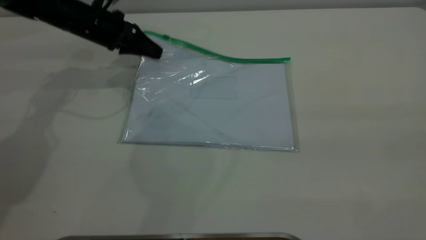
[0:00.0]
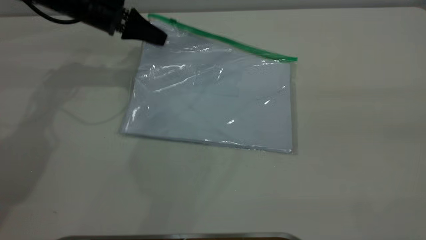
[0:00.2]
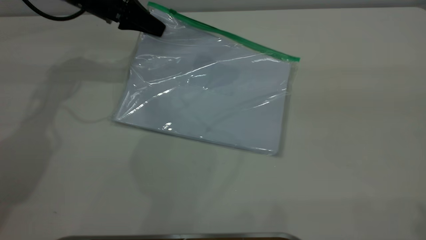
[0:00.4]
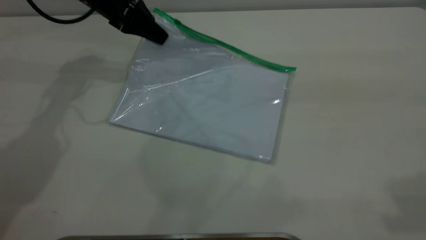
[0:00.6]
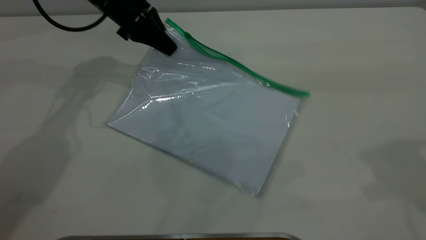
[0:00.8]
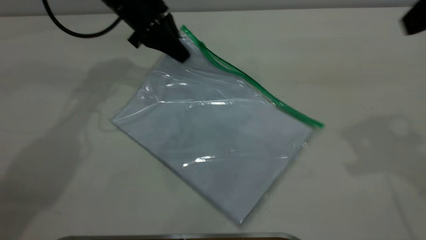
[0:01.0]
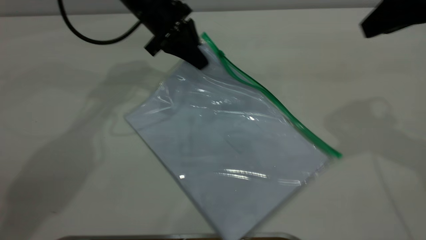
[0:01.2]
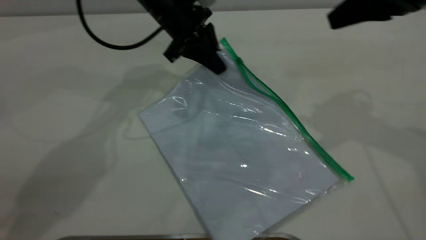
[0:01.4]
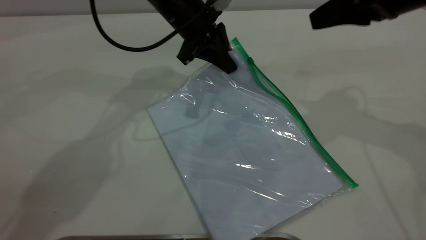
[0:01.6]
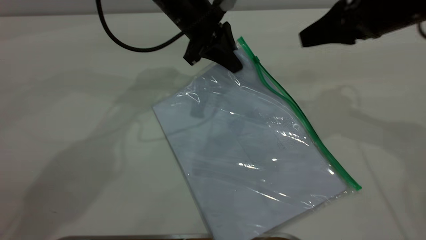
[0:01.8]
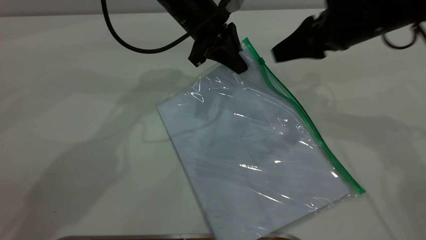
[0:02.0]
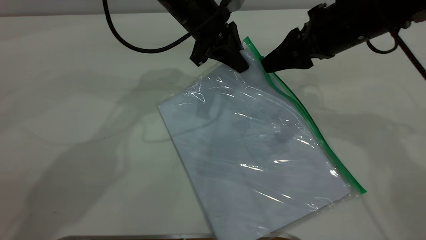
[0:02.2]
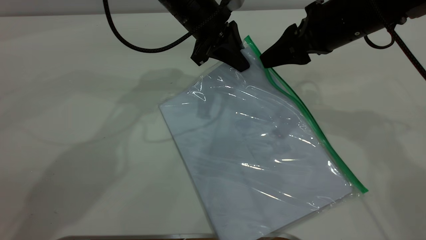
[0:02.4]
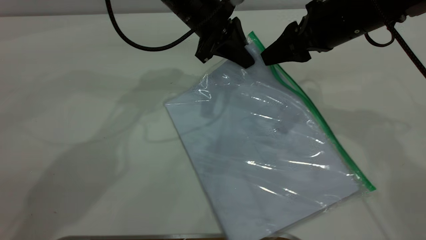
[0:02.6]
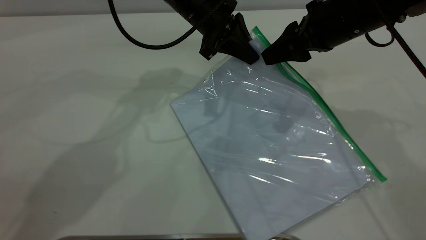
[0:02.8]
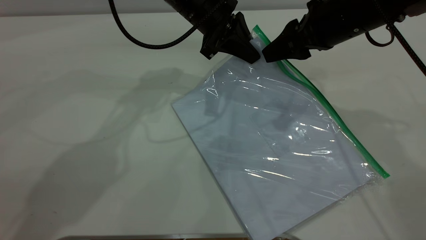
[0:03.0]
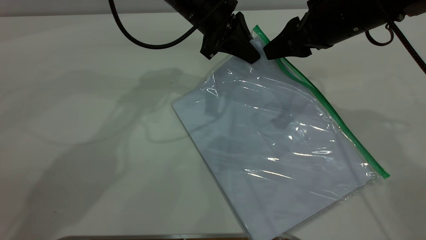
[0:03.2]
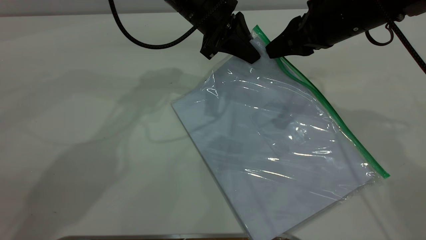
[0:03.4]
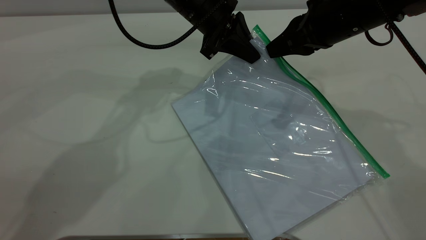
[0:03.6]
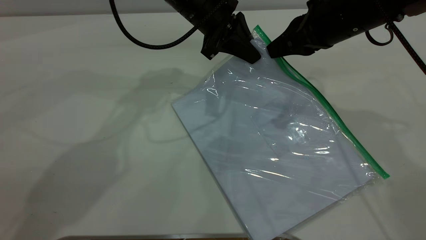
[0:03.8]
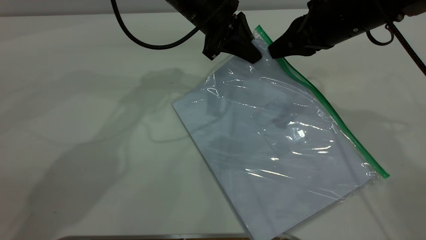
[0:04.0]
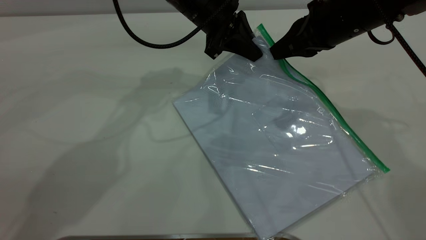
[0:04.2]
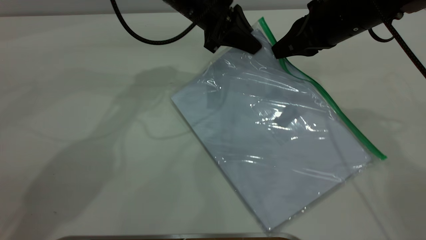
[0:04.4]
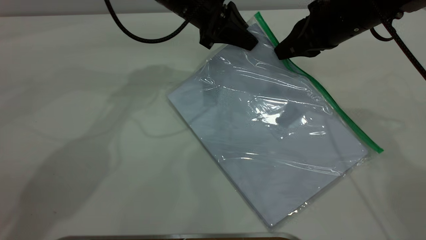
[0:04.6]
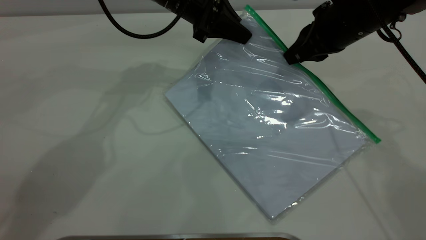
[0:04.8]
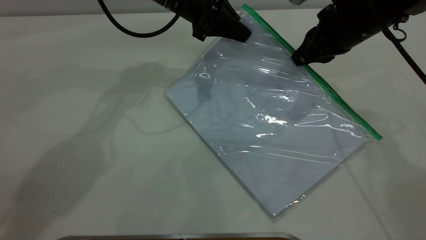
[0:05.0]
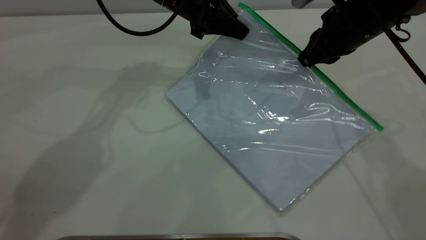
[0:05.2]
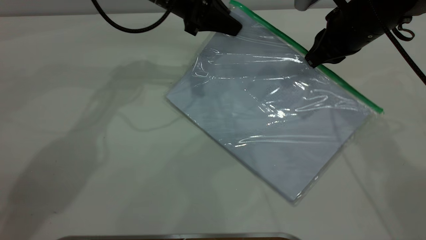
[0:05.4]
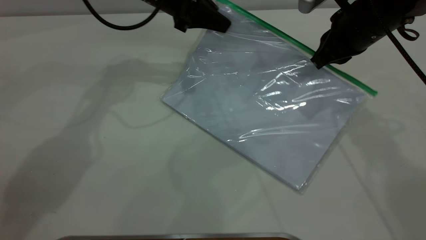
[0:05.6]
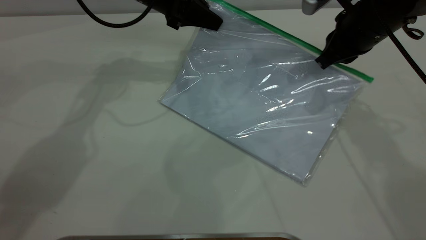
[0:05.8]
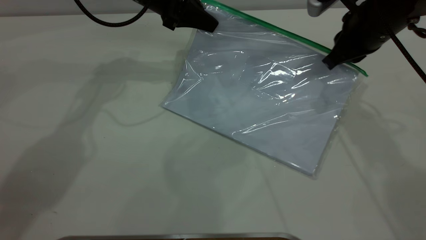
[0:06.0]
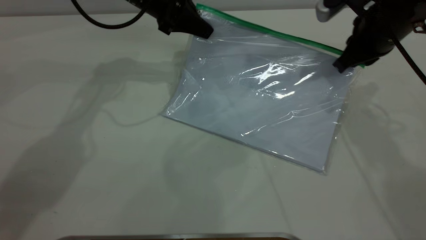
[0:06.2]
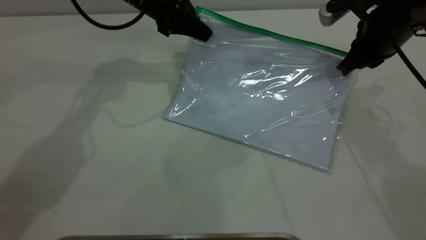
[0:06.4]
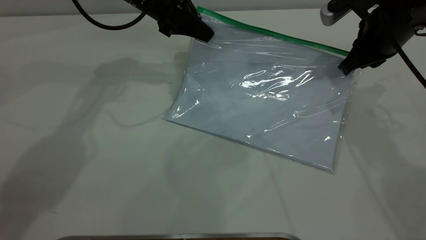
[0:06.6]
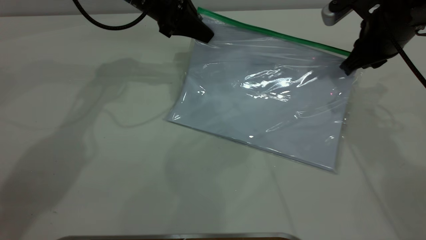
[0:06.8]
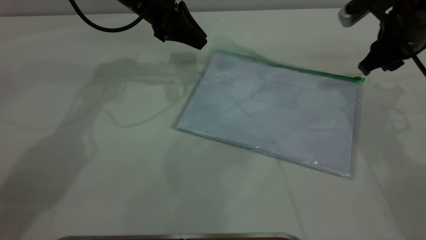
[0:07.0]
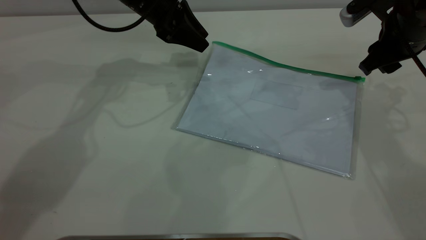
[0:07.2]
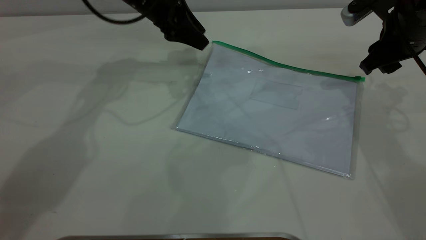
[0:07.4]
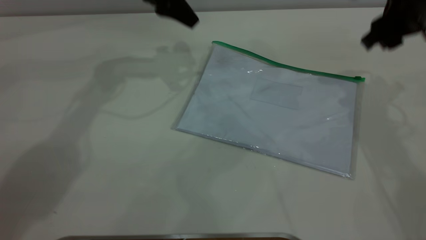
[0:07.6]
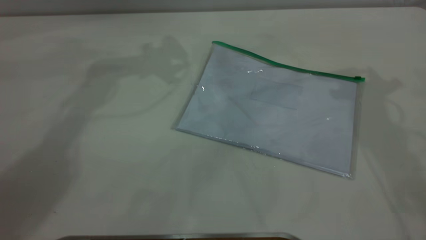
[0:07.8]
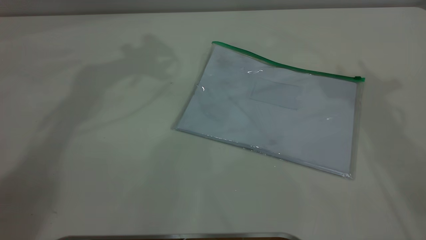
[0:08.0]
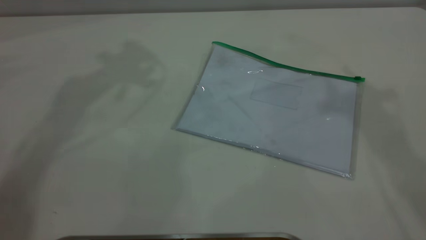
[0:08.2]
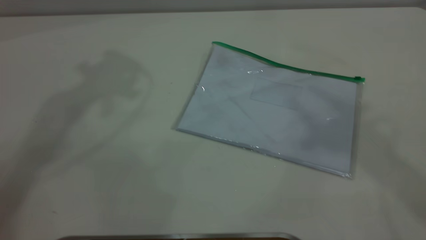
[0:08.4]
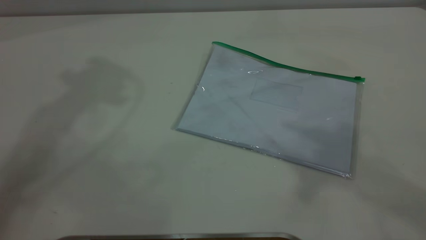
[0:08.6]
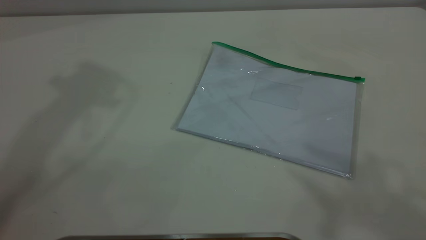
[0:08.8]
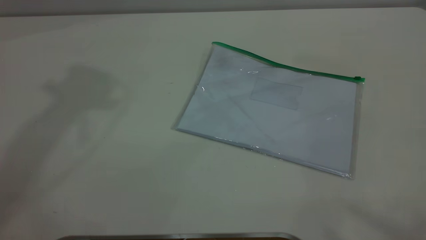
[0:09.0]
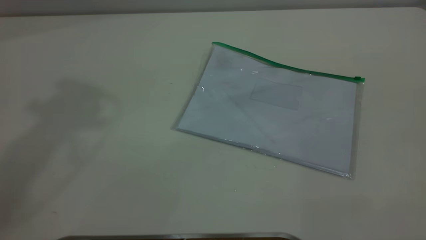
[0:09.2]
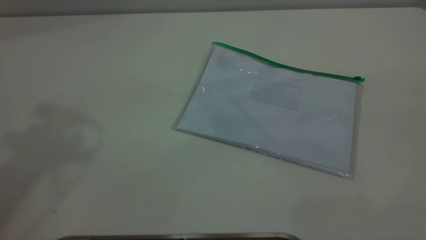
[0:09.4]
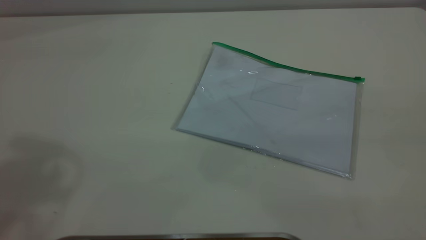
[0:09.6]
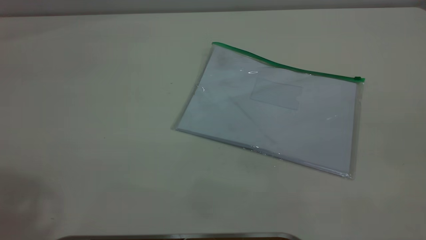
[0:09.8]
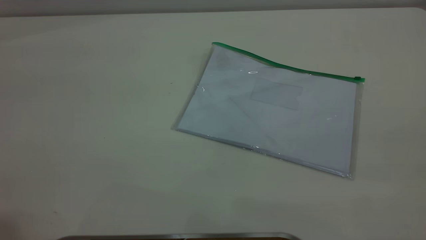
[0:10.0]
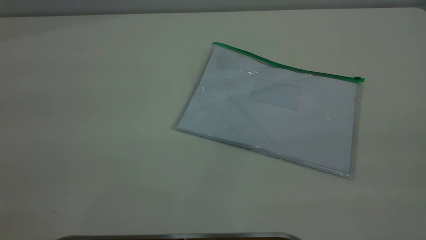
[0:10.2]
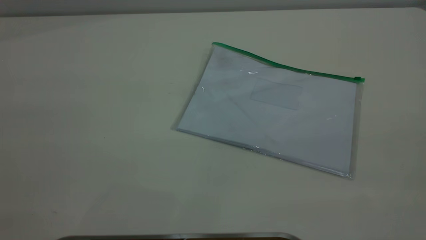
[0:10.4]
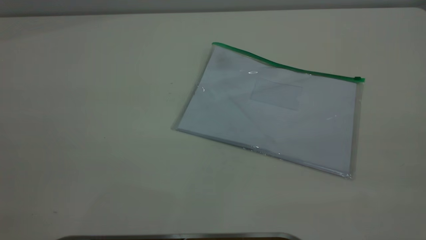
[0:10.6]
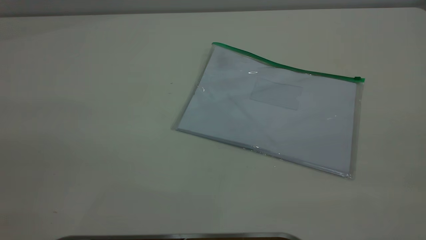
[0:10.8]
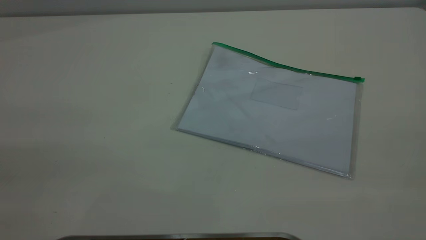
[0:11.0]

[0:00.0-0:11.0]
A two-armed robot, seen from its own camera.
Step, 0:00.2 to 0:06.2: Pulling up the zipper on the transparent plastic bag with the right gripper to close it.
Step, 0:06.4 to 0:07.2: Place the transparent plastic bag.
0:00.0 to 0:01.6: The left gripper travels to the right by approximately 15 cm. Meanwhile the right gripper goes about 35 cm forward and downward.
0:01.6 to 0:03.2: The right gripper shifts roughly 10 cm to the left and downward.
0:03.2 to 0:04.8: The right gripper closes.
0:04.8 to 0:06.2: The right gripper moves approximately 5 cm, while the left gripper travels to the left by about 5 cm.
0:06.2 to 0:07.8: Both grippers travel together upward, about 15 cm. The right gripper opens. Meanwhile the left gripper opens.

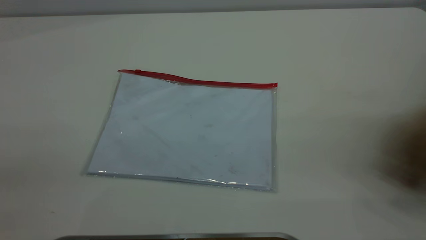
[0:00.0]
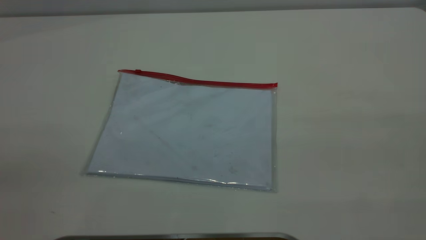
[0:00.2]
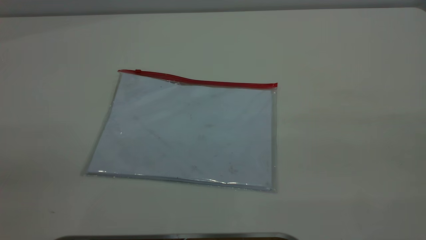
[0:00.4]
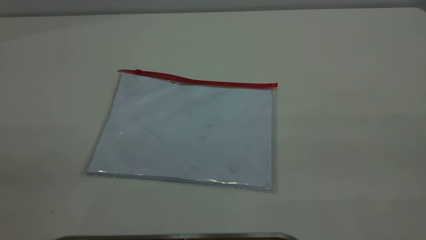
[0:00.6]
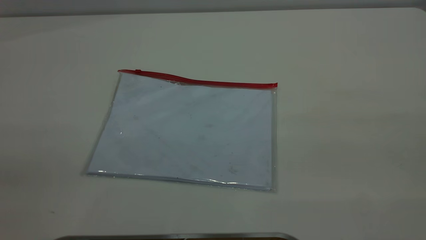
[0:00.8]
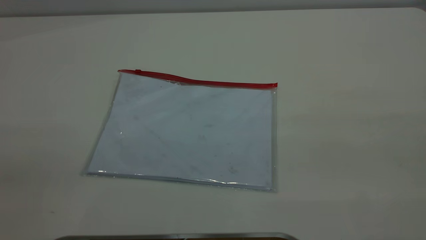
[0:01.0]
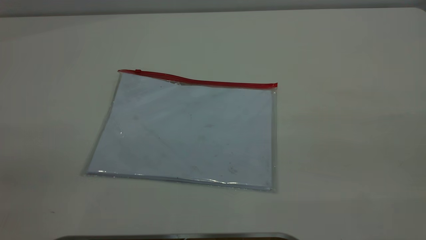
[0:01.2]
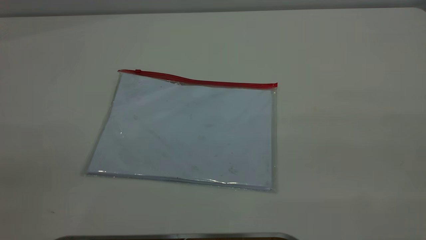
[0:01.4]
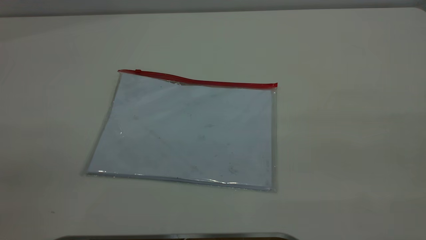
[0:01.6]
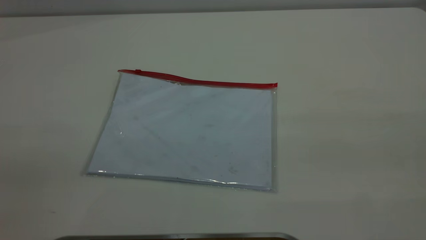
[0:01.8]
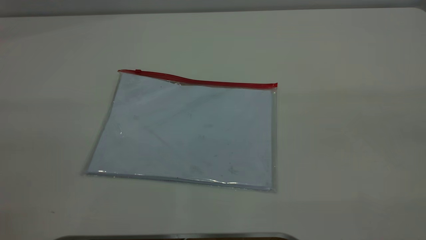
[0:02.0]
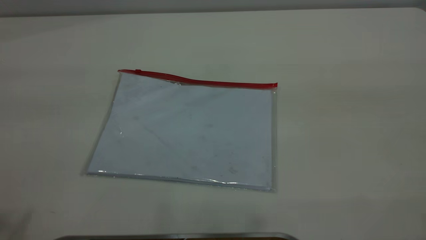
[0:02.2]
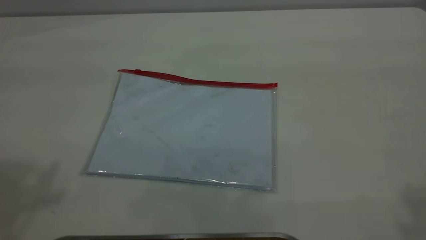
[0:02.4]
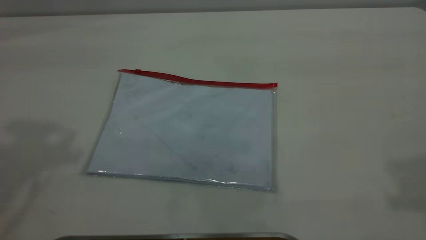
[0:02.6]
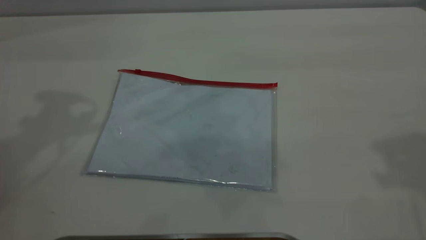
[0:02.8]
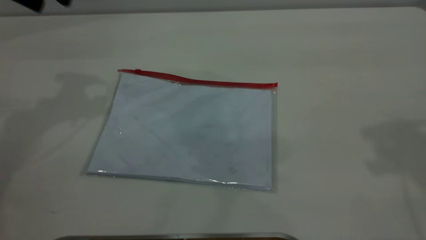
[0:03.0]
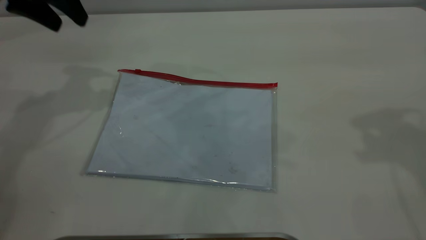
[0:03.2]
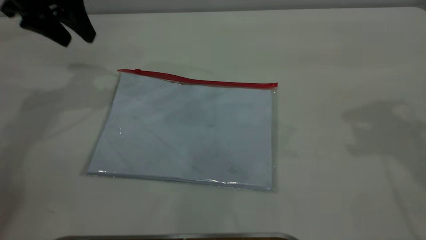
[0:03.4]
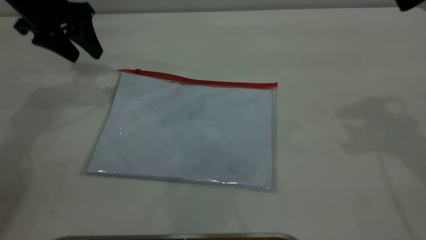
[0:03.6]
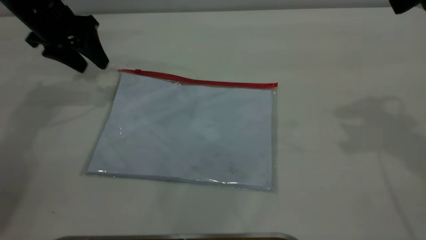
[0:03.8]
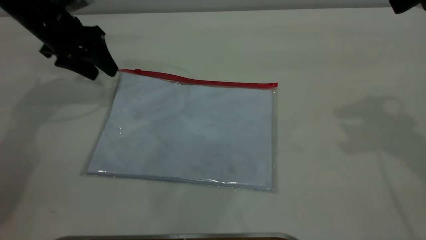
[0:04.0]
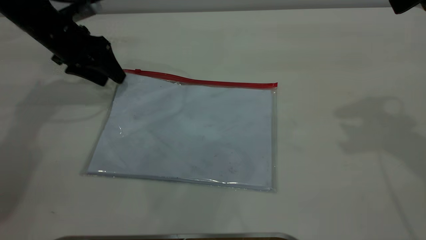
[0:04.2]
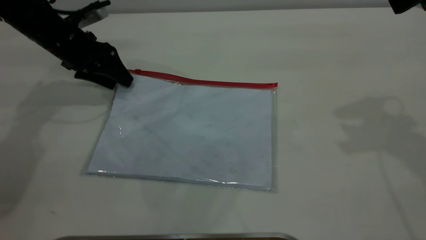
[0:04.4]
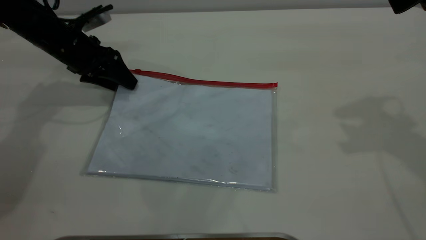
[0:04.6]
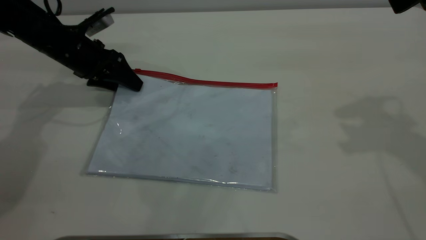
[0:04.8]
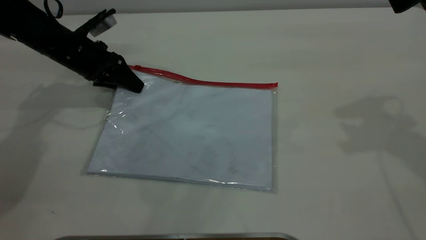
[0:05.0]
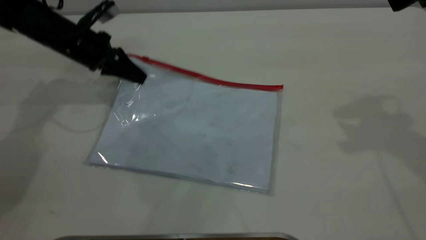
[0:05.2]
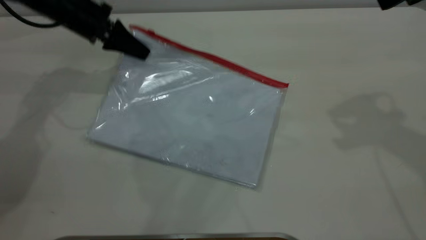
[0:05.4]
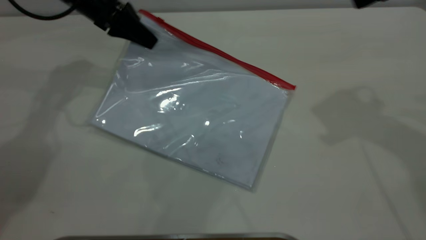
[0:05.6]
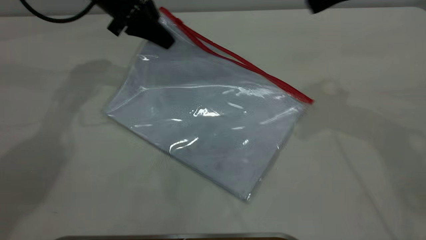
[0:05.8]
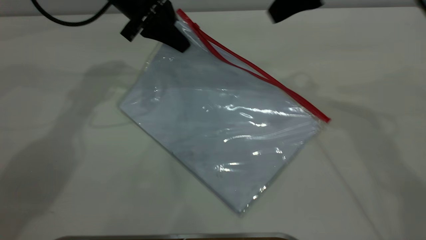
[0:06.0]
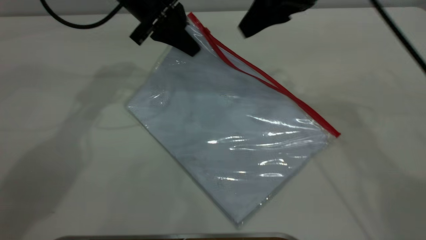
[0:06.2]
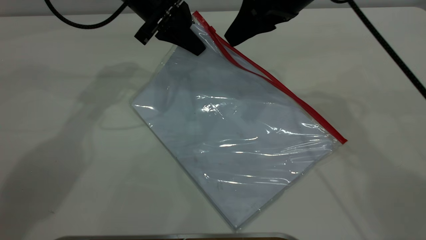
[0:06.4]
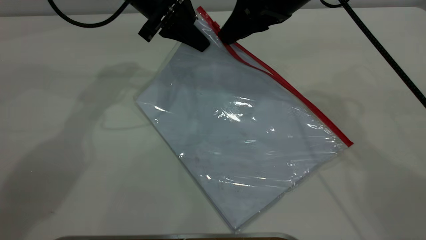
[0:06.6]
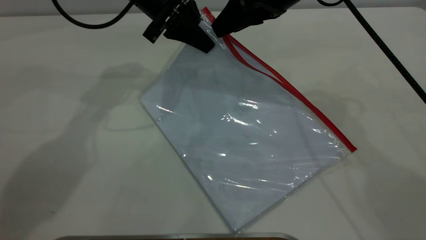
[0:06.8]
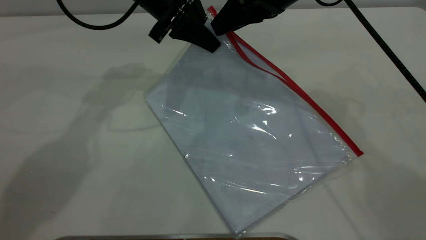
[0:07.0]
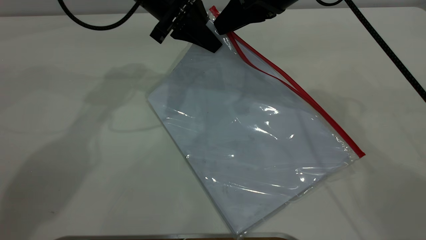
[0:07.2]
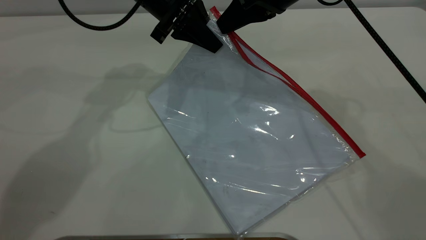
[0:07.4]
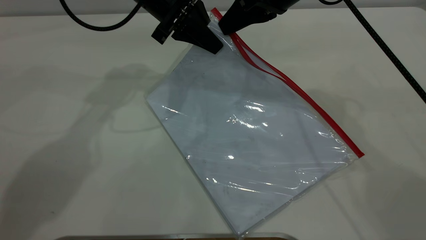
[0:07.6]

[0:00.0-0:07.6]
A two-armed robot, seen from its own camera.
Step, 0:00.0 to 0:05.2: Pick up the transparent plastic bag with the left gripper.
0:00.0 to 0:01.6: Both grippers stay about where they are.
0:03.0 to 0:04.6: The left gripper moves downward, about 20 cm.
0:04.6 to 0:06.0: The left gripper heads to the right and upward, covering approximately 15 cm, and closes; the right gripper shifts about 15 cm to the left, forward and downward.
0:06.0 to 0:07.6: The right gripper ends up roughly 5 cm from where it was, and closes its fingers.
